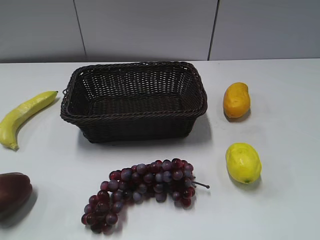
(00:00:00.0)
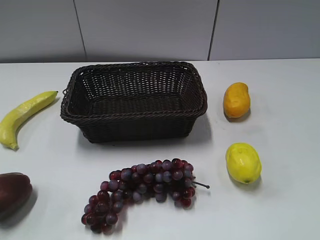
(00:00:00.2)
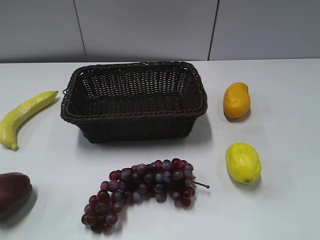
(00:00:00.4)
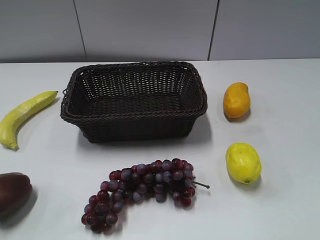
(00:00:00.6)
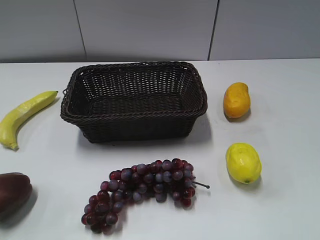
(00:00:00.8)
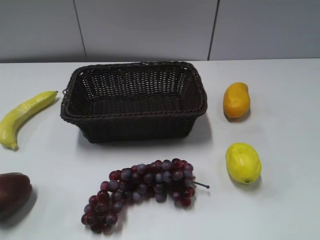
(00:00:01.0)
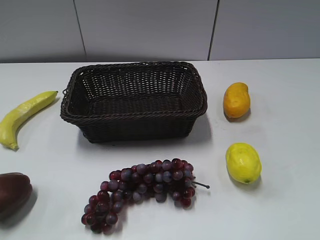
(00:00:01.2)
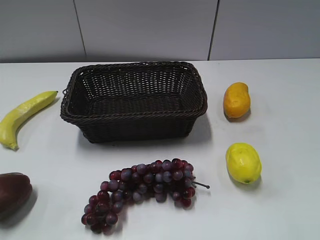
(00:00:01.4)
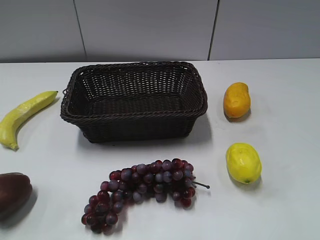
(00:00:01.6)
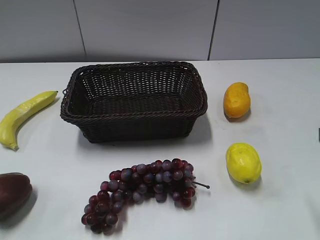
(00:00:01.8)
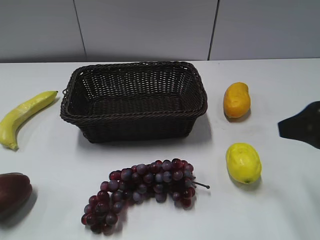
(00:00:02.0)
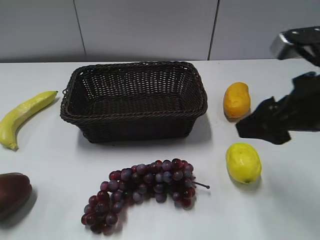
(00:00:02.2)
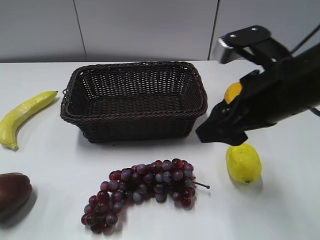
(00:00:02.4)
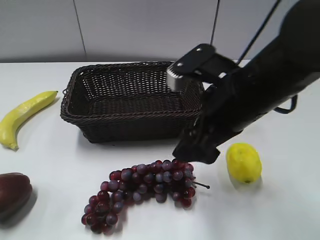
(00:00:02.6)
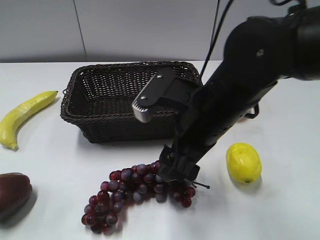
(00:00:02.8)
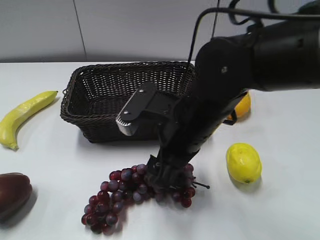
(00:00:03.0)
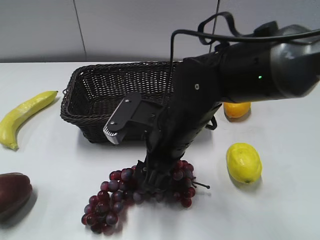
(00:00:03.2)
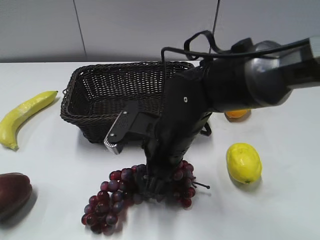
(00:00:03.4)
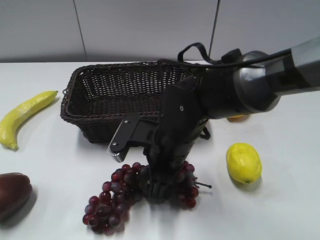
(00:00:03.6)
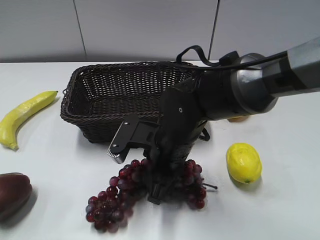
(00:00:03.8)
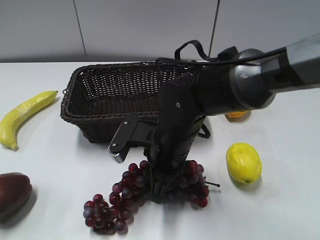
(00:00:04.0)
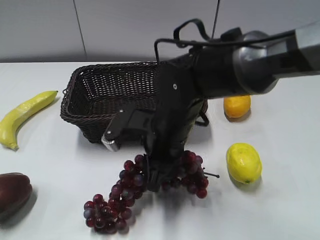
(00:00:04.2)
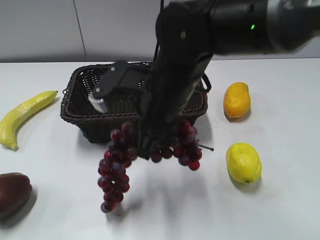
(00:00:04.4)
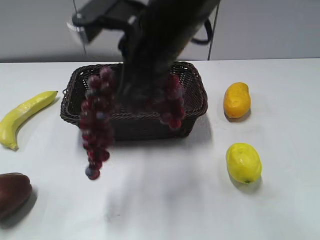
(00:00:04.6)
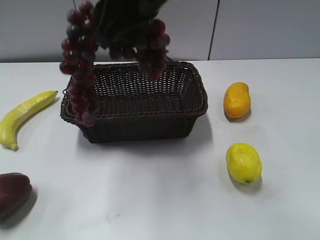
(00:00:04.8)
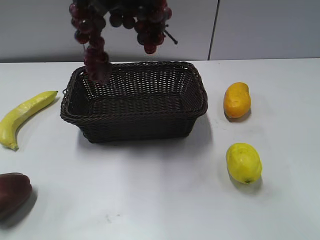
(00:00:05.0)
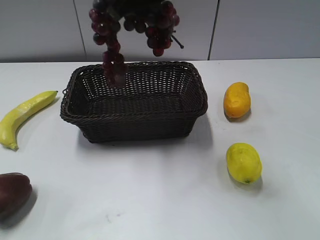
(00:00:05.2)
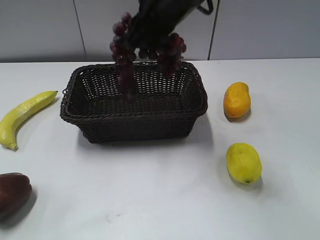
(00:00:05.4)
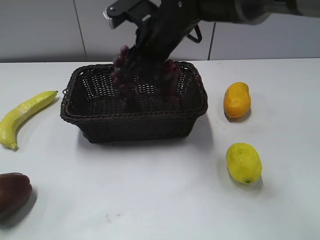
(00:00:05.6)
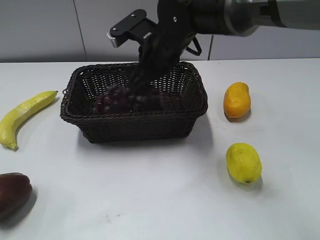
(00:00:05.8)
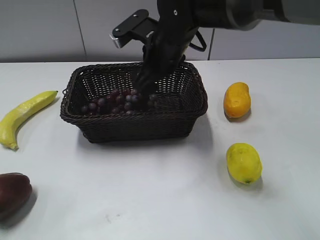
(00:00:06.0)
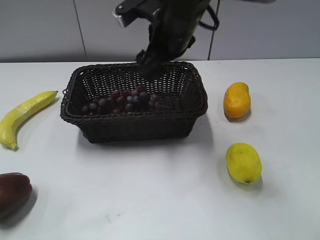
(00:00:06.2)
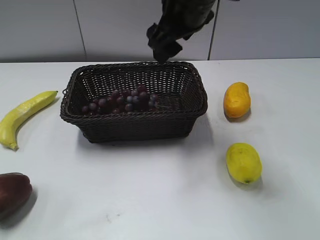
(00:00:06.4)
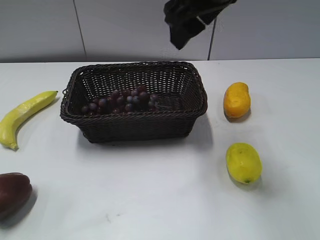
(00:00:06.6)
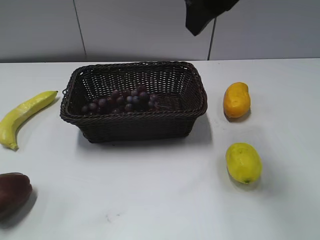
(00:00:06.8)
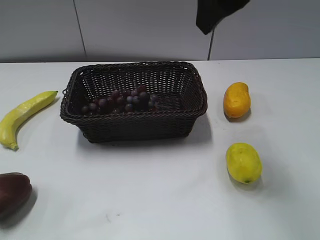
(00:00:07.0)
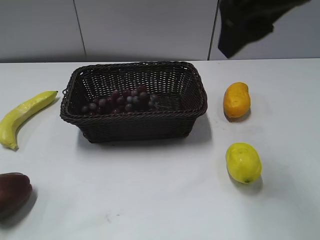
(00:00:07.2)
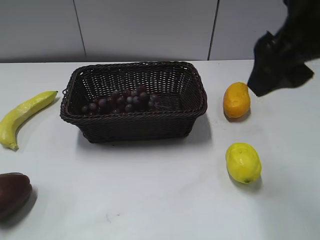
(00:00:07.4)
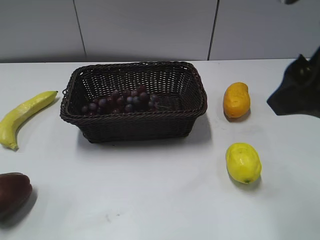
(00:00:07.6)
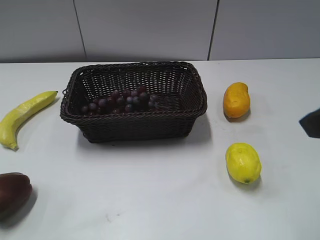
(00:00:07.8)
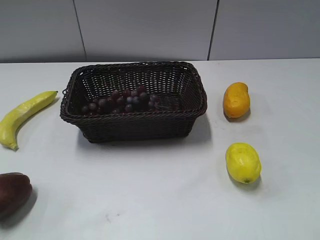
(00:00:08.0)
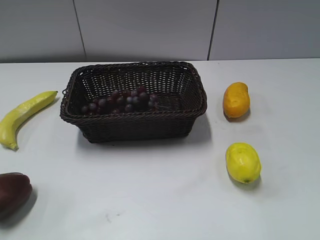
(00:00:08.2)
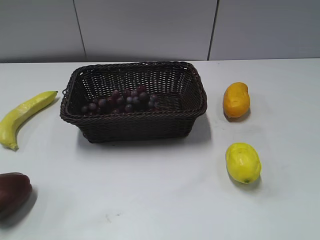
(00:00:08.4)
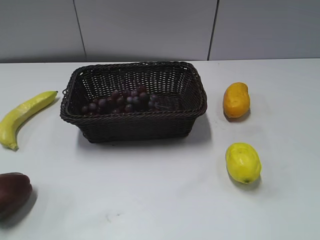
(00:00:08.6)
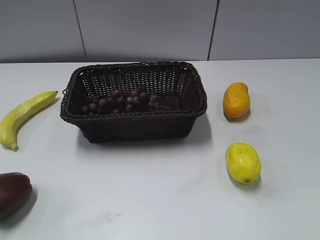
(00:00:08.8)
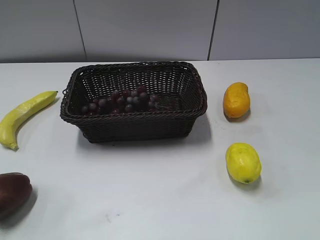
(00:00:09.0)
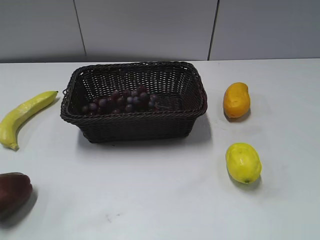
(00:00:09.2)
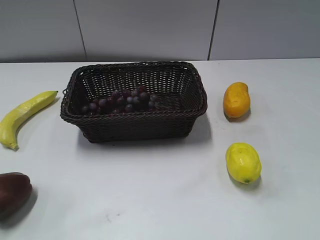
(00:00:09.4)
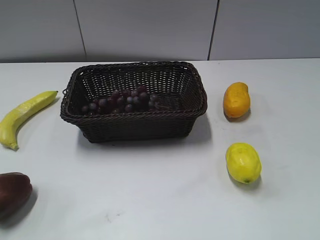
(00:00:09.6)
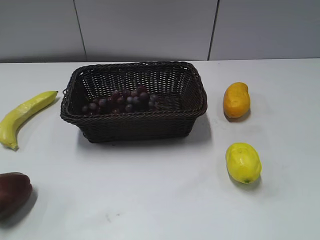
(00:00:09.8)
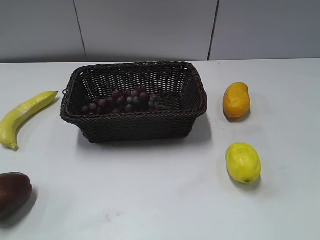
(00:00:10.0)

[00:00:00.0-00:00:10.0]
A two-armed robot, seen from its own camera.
Step, 00:00:01.8 to 00:00:04.2: Grasp the grape with right gripper.
Step, 00:00:04.4 to 00:00:06.2: Place the grape in the basket with right gripper.
00:00:01.4 to 00:00:02.8: The right gripper travels to the left, forward and downward by some 30 cm.
00:00:02.8 to 00:00:04.2: The right gripper is displaced to the left and downward by approximately 10 cm, and closes up.
00:00:04.2 to 00:00:05.8: The right gripper heads forward, covering approximately 10 cm, goes upward and returns, roughly 20 cm each way, and opens up.
00:00:05.8 to 00:00:07.2: The right gripper is displaced upward, backward and to the right by about 25 cm.
00:00:07.2 to 00:00:08.6: The right gripper heads backward and to the right, covering approximately 30 cm.

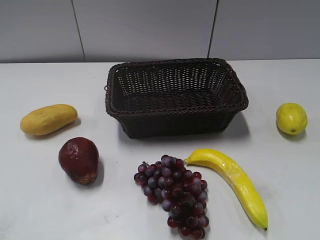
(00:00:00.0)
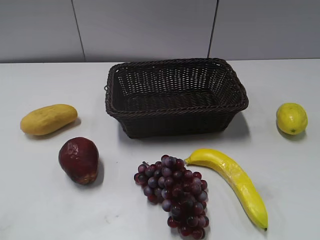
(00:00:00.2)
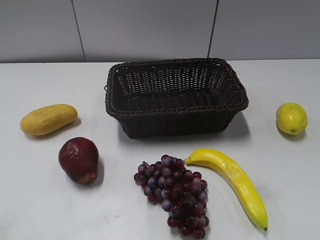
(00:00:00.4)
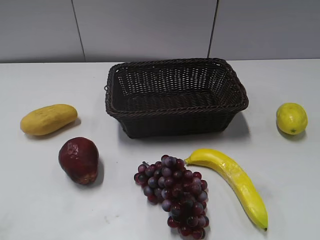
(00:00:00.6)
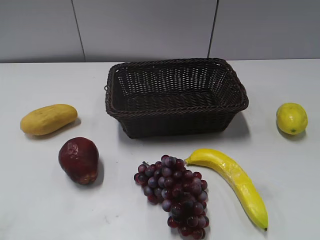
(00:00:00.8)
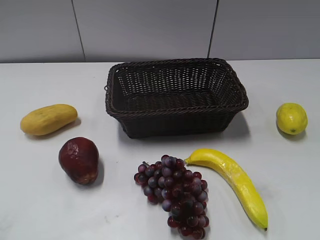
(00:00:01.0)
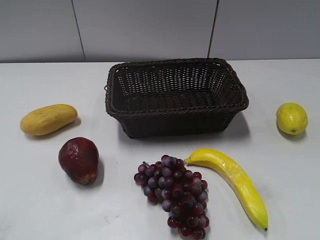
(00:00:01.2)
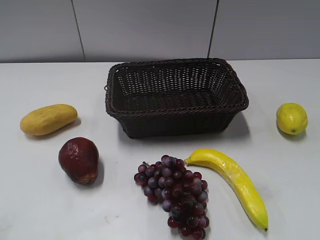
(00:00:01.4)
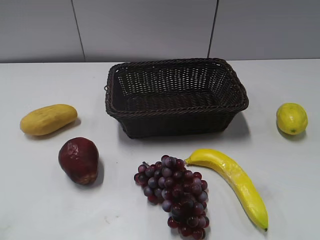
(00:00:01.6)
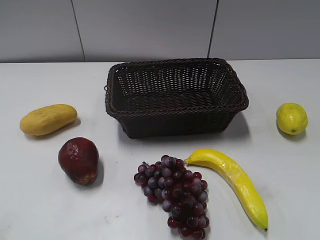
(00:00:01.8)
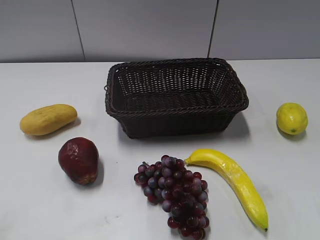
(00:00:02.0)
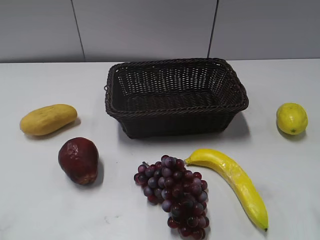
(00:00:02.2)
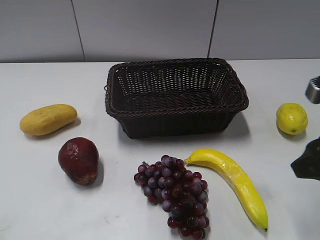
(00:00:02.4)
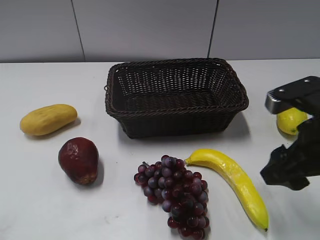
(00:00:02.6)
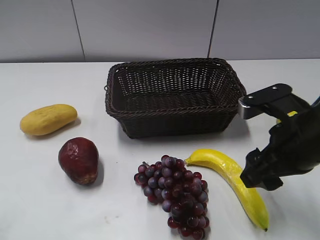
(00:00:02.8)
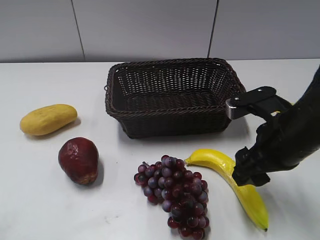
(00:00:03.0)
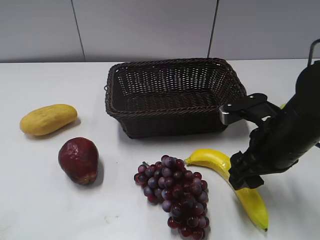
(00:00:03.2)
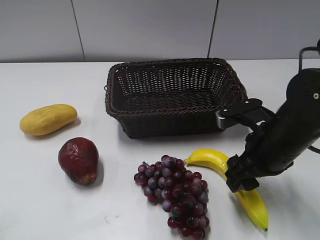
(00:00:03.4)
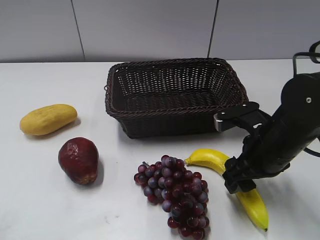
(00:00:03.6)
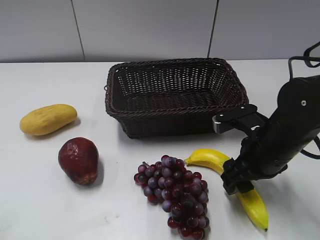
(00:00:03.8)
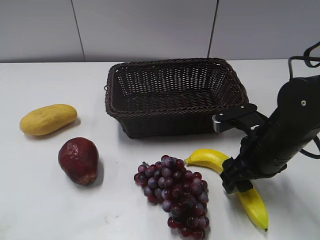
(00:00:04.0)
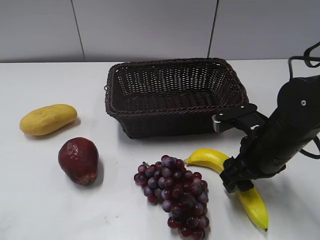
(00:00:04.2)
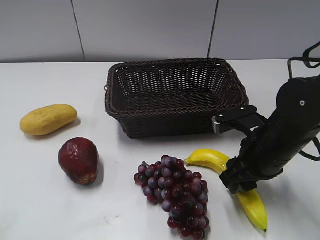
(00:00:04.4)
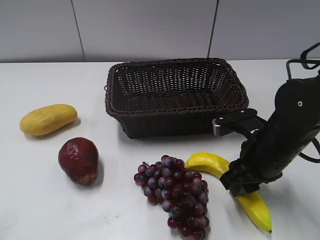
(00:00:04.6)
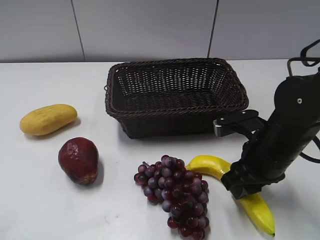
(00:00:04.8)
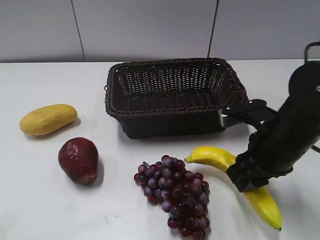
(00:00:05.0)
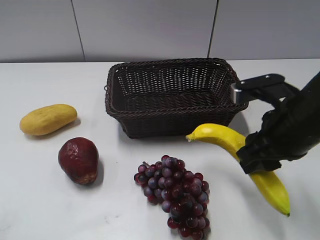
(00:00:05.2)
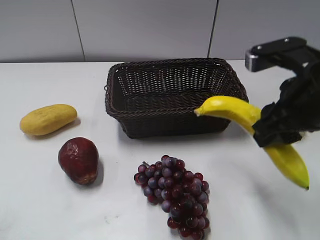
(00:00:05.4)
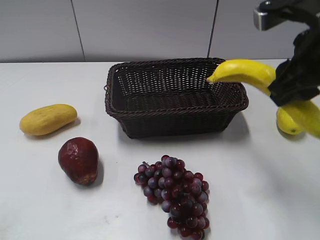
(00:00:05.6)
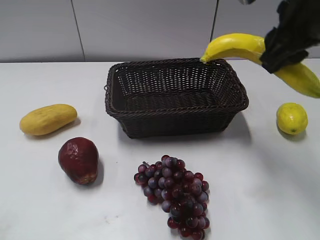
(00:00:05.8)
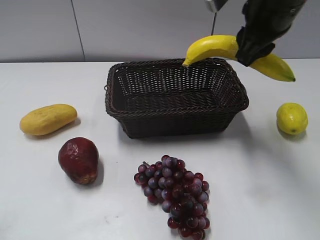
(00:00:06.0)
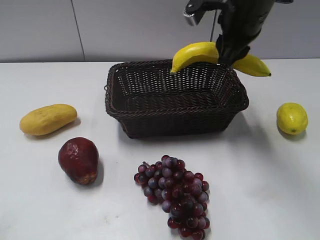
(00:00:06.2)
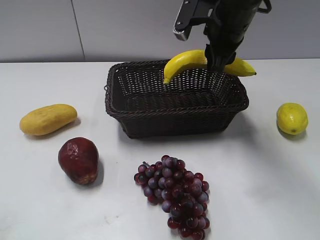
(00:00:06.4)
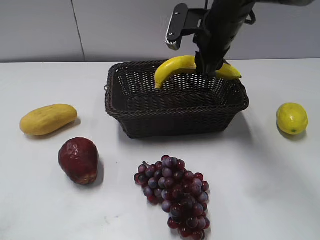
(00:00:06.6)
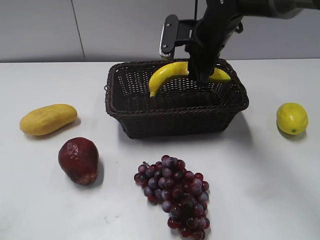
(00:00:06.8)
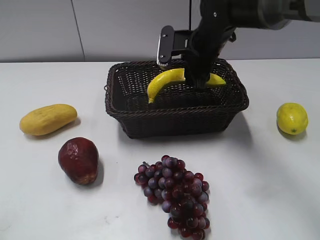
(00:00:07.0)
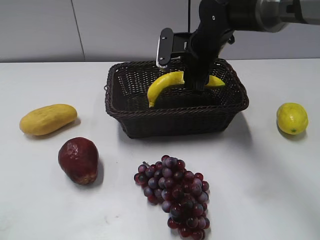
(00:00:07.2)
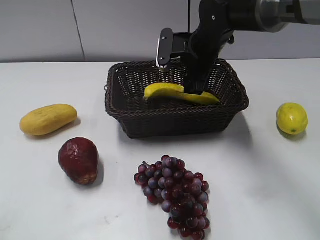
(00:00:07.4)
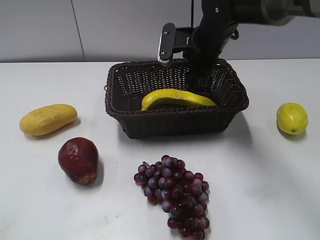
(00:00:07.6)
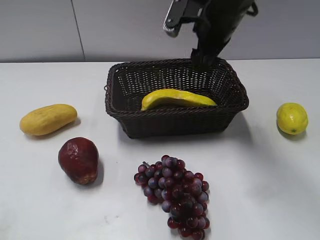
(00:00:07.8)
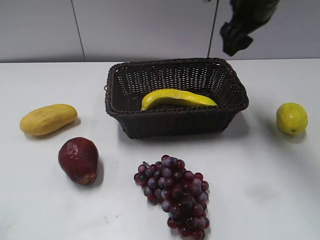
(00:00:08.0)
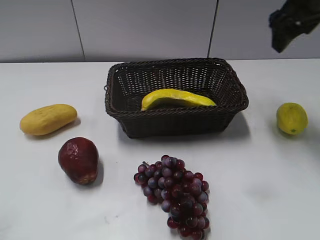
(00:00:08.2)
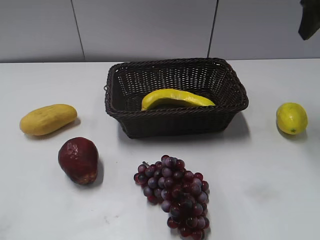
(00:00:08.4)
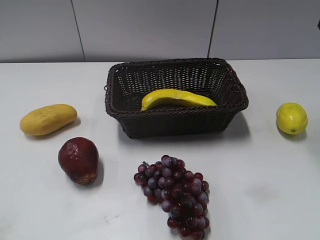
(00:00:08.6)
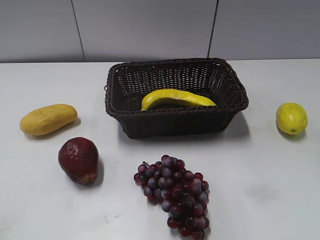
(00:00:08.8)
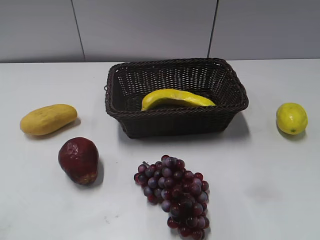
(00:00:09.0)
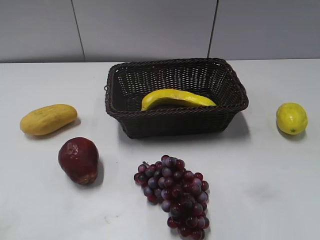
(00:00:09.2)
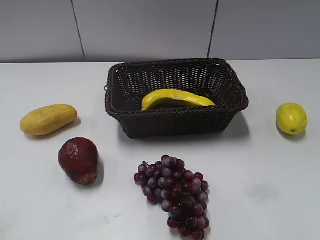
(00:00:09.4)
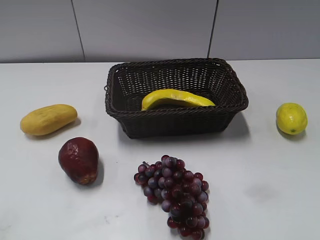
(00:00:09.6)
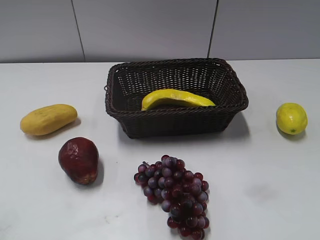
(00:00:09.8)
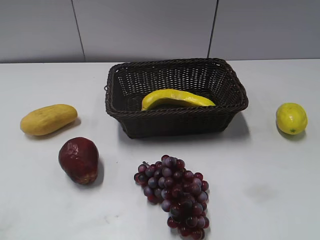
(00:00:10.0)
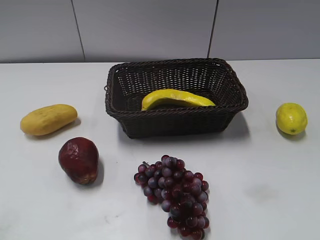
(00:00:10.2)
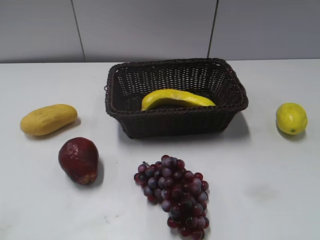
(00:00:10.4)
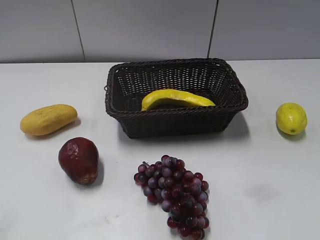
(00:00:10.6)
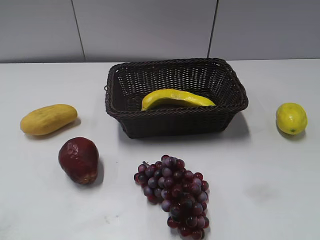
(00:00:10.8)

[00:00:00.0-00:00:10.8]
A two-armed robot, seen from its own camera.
Step, 00:00:02.2 to 00:00:04.8: Grasp the banana with right gripper.
Step, 00:00:05.0 to 00:00:07.4: Place the banana in the basket with right gripper.
00:00:01.6 to 00:00:03.0: The right gripper is displaced forward, downward and to the left by about 20 cm.
00:00:03.0 to 00:00:04.6: The right gripper closes its fingers.
00:00:04.6 to 00:00:06.2: The right gripper moves forward and upward, some 20 cm.
00:00:06.2 to 00:00:07.8: The right gripper reaches approximately 10 cm downward, then returns, and opens its fingers.
00:00:07.8 to 00:00:09.2: The right gripper heads backward and to the right, covering approximately 30 cm.
